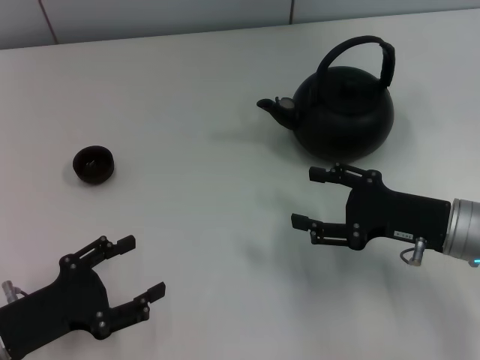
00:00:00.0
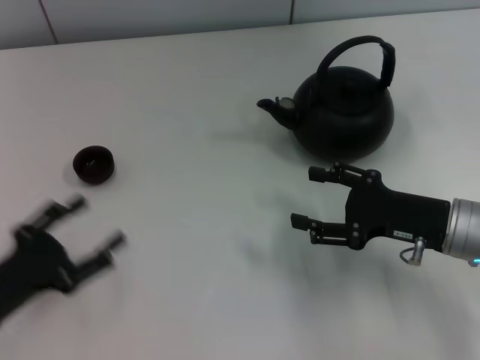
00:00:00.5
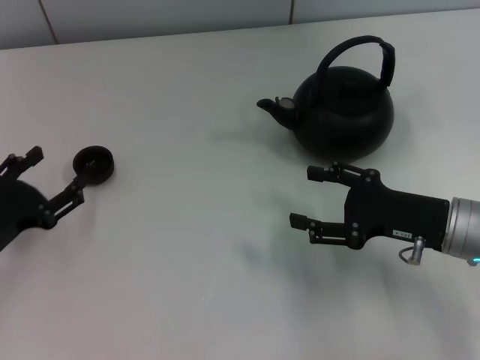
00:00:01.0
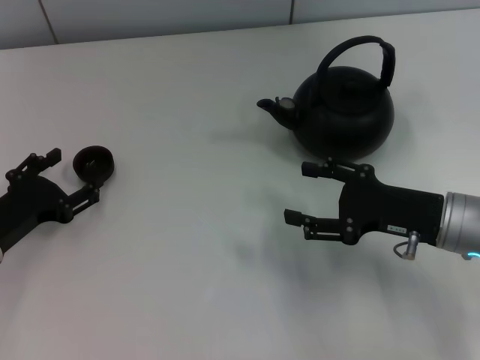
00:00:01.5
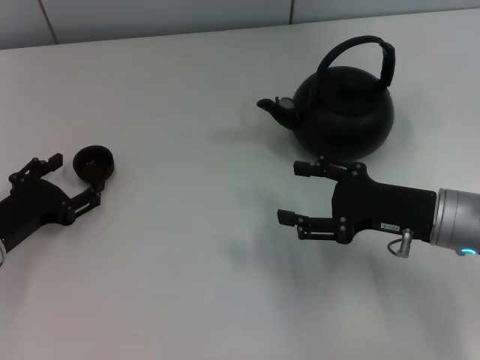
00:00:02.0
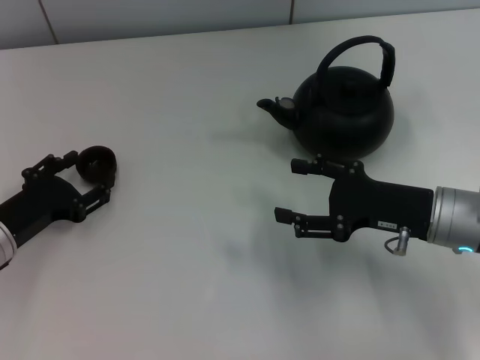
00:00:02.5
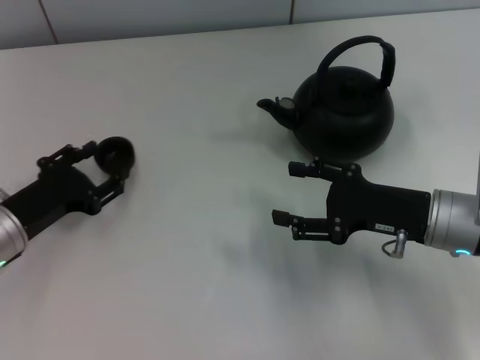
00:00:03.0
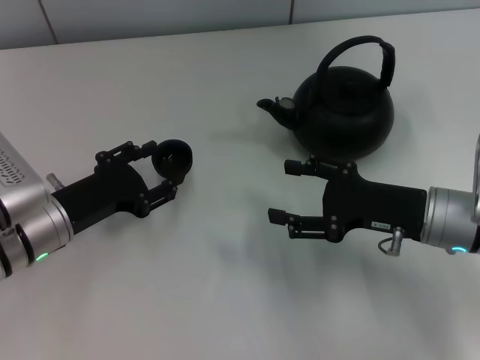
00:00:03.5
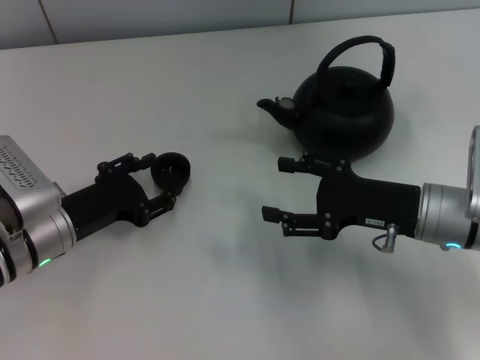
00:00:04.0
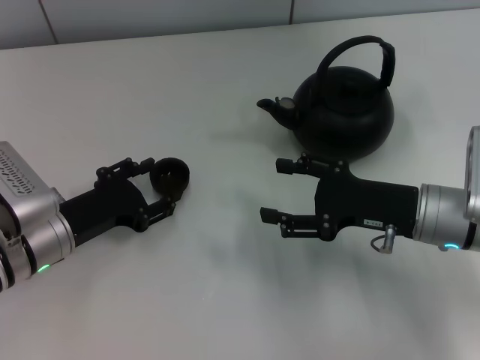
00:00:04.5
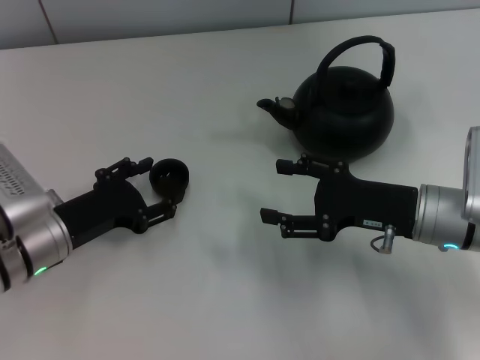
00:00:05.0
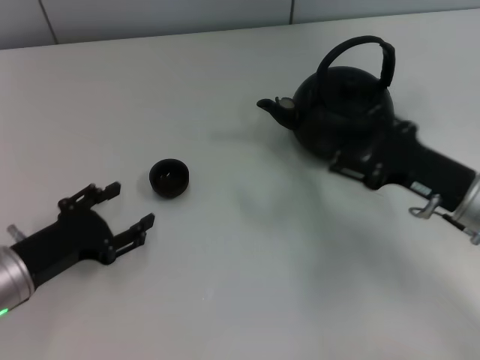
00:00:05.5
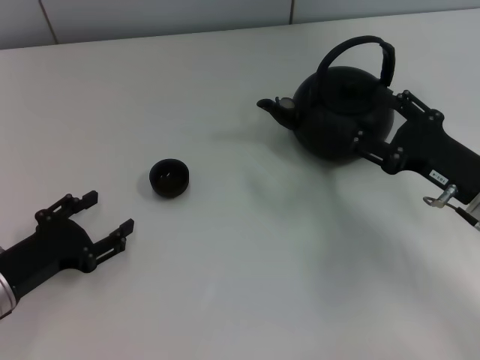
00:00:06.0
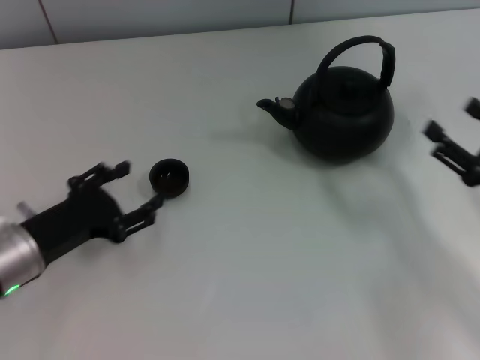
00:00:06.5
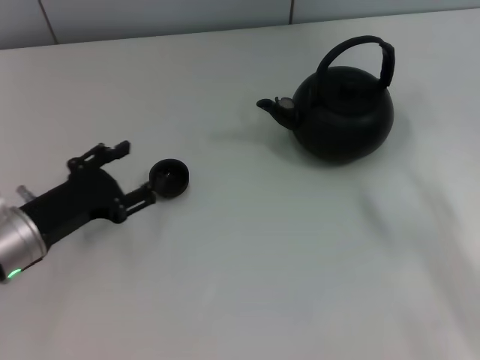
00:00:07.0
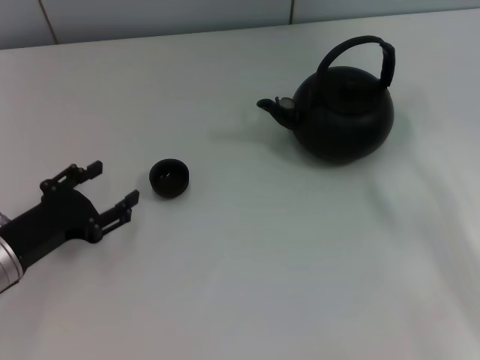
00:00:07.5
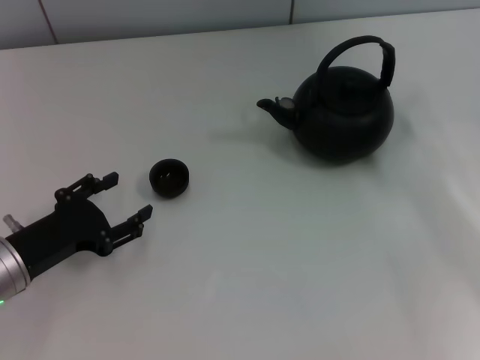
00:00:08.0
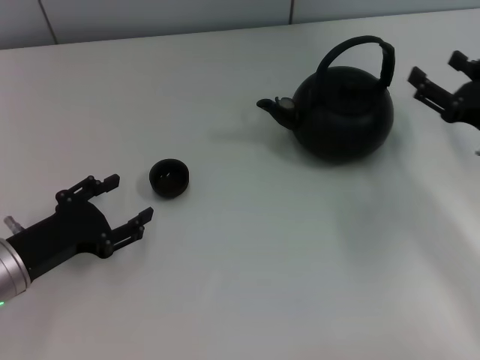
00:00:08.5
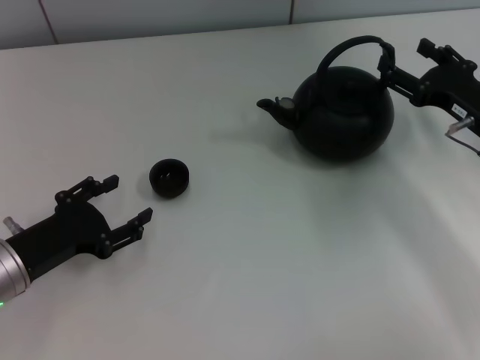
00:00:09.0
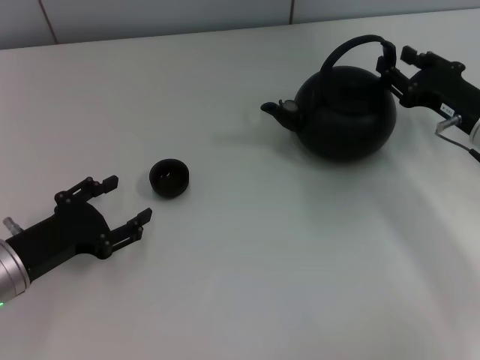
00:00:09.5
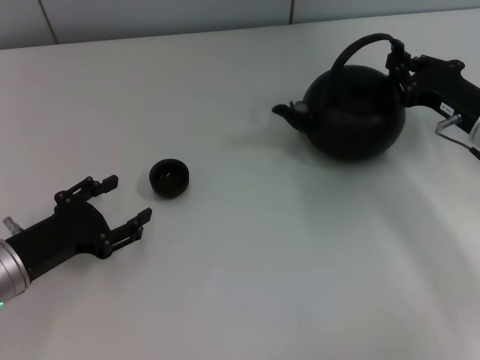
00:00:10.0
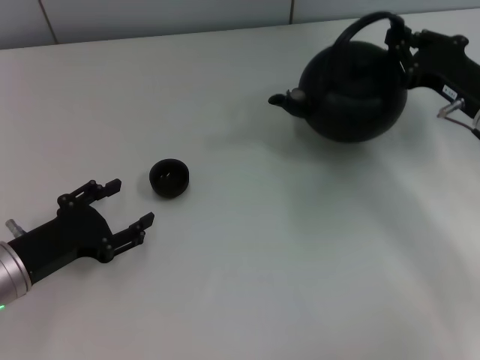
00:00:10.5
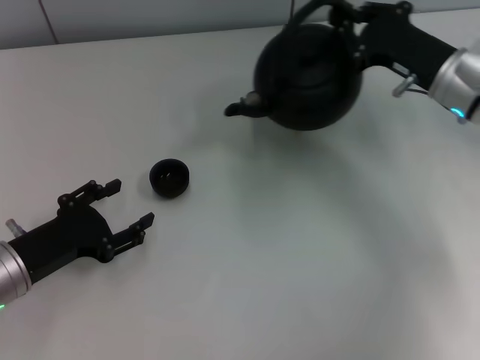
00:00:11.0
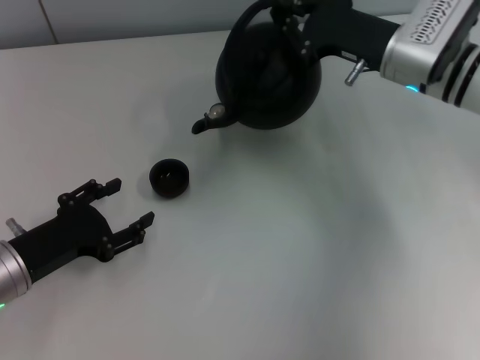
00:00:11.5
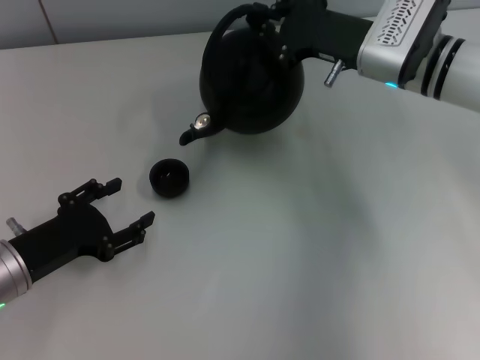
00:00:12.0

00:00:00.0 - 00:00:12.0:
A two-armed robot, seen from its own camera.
Task of the whole recording: Grasp the handle of the teapot with one hand and pour tea into the teacup.
Step, 00:00:00.0 - 00:00:03.0: Pick up the teacup with the left gripper.
Step, 00:00:03.5 - 00:00:05.0: Place the teacup in the center of view with the left gripper.
Step, 00:00:05.5 - 00:00:10.5: Pick up the teapot with the right gripper.
00:00:00.0 - 00:00:02.0: The left gripper is displaced forward by approximately 10 cm.
00:00:02.0 - 00:00:04.0: The left gripper is displaced to the right by some 5 cm, and closes up.
00:00:04.0 - 00:00:06.0: The left gripper travels backward and to the left by some 10 cm, and opens.
00:00:06.0 - 00:00:08.0: The right gripper heads to the right, covering about 10 cm.
00:00:08.0 - 00:00:10.0: The right gripper moves forward and to the left, some 10 cm, and closes.
00:00:10.0 - 00:00:12.0: The right gripper heads to the left, forward and upward, covering approximately 15 cm.

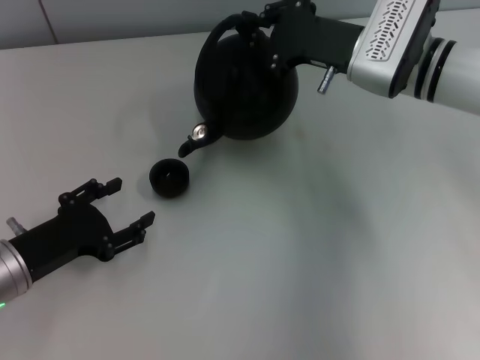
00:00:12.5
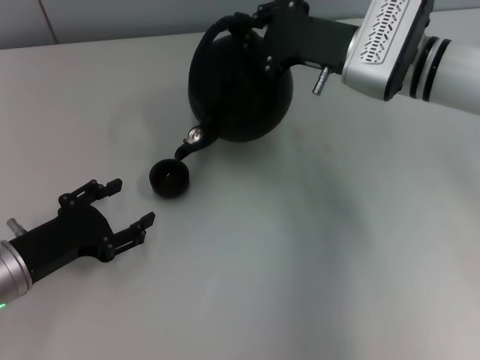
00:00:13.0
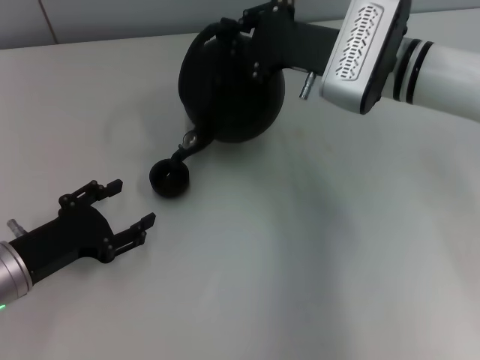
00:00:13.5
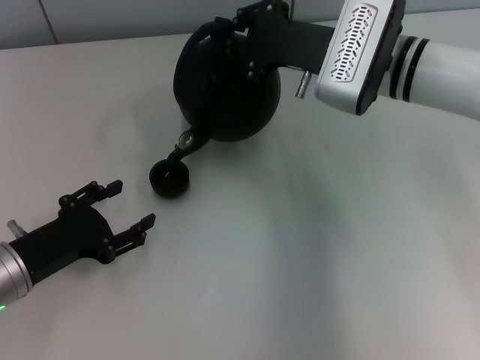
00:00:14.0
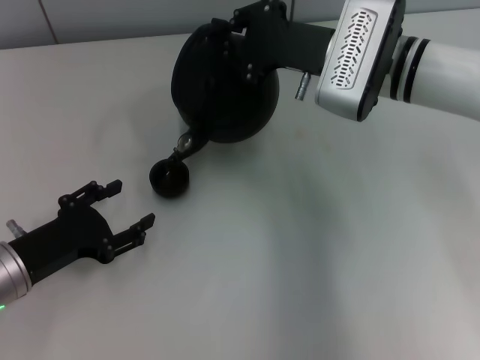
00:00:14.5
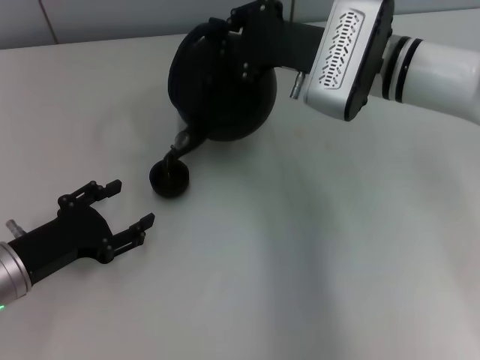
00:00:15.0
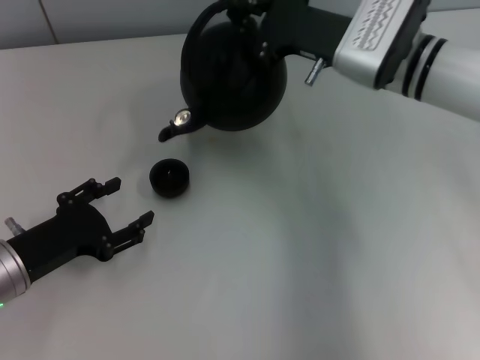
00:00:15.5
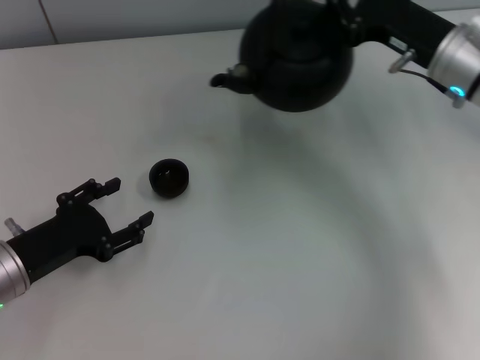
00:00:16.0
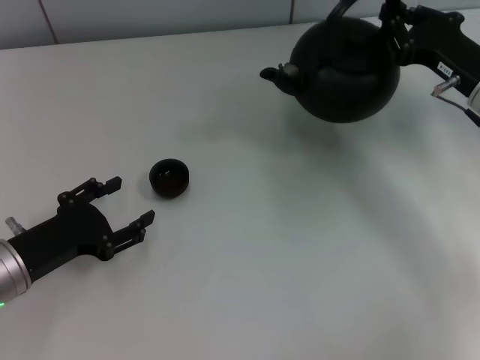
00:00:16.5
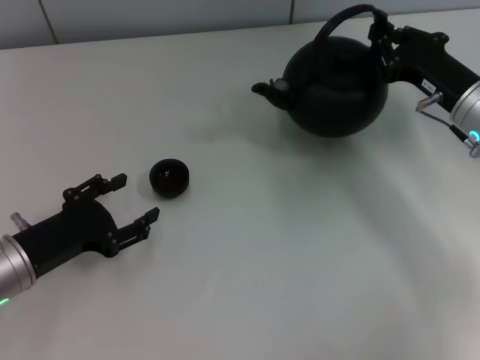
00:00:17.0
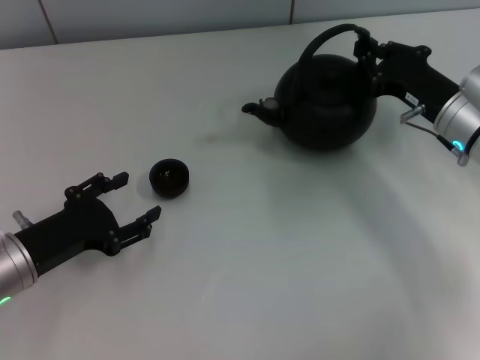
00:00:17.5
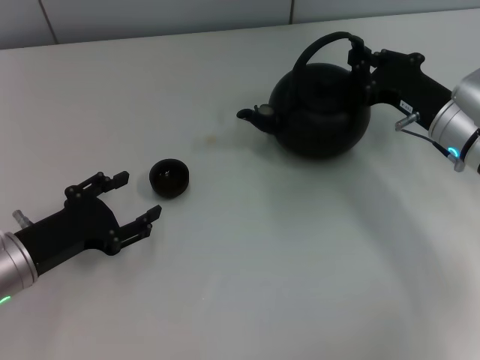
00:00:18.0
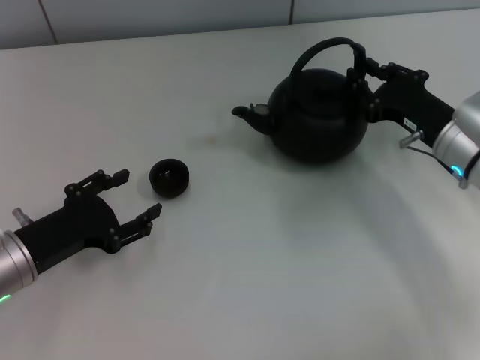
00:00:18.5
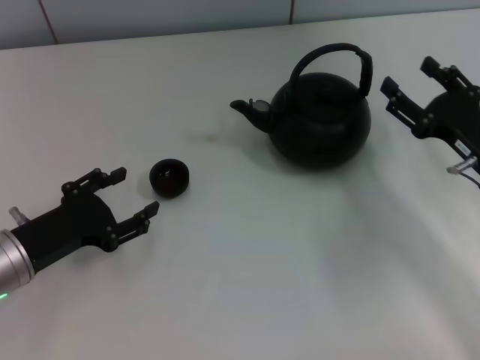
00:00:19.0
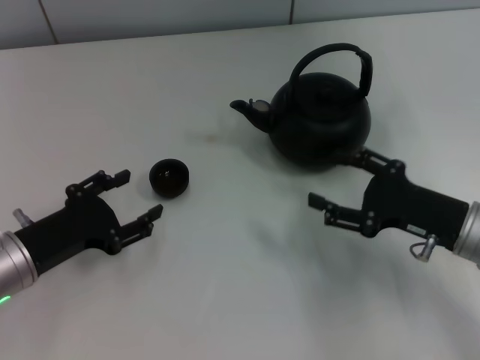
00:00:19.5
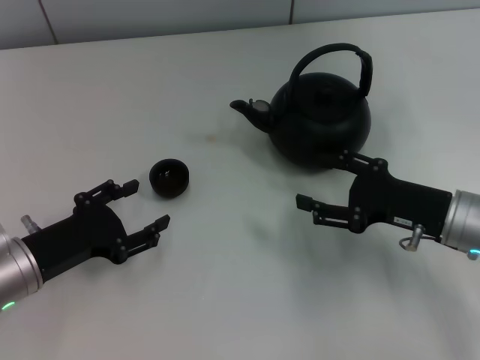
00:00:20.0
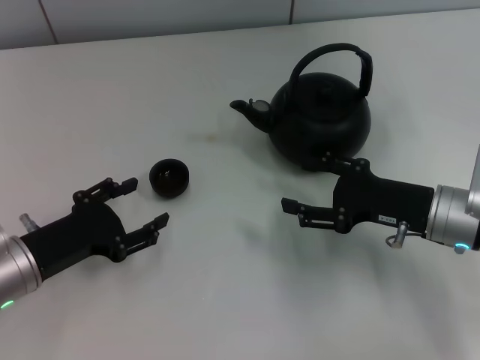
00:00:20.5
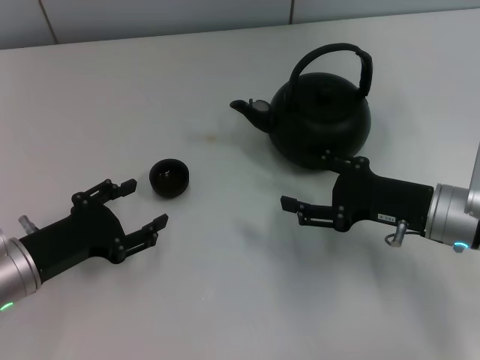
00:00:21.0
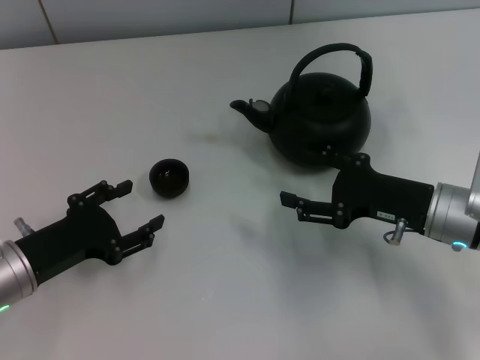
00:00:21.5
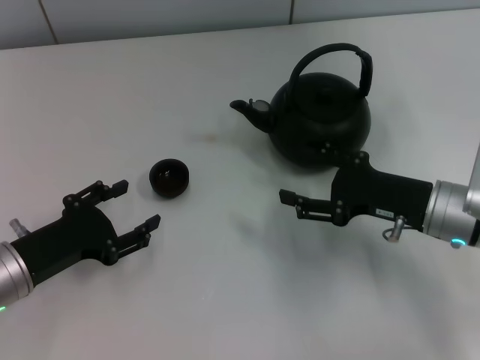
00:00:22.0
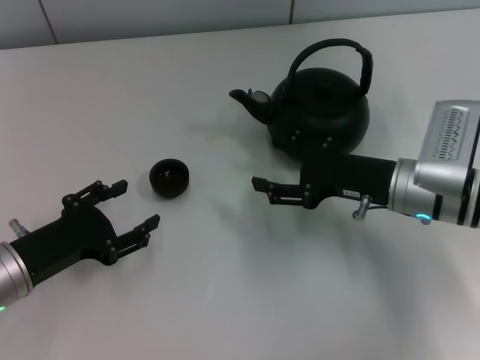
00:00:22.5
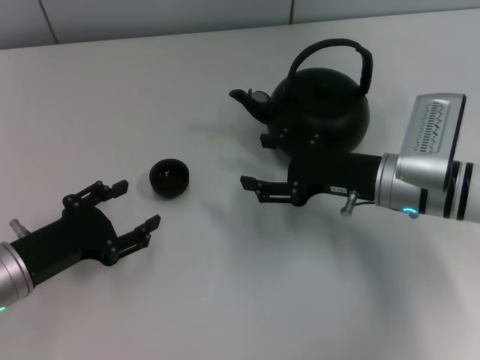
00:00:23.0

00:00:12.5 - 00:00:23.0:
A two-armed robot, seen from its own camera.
Task of the whole recording: Grasp the handle of the teapot with one hand and pour tea into the teacup.
Step, 00:00:16.5 - 00:00:21.0: Put down the teapot with the right gripper.
00:00:12.5 - 00:00:14.5: The grippers stay close to where they were, moving slightly.
00:00:14.5 - 00:00:16.5: The right gripper heads to the right, covering roughly 15 cm.
00:00:16.5 - 00:00:19.0: The right gripper shifts some 5 cm backward, and opens its fingers.
00:00:19.0 - 00:00:21.0: The right gripper travels to the left by some 5 cm, and opens up.
00:00:21.0 - 00:00:23.0: The right gripper shifts by roughly 5 cm.
